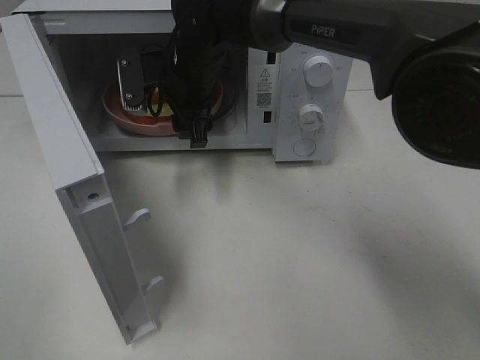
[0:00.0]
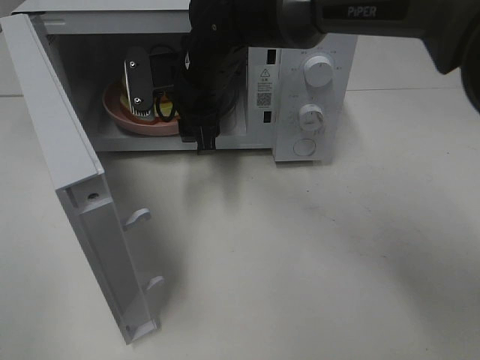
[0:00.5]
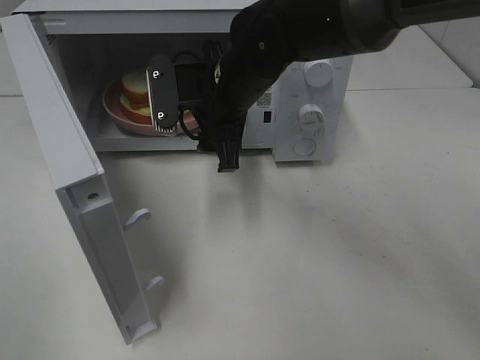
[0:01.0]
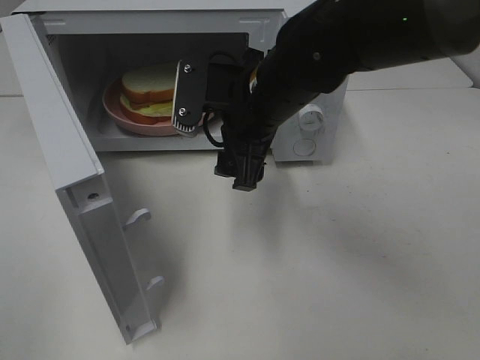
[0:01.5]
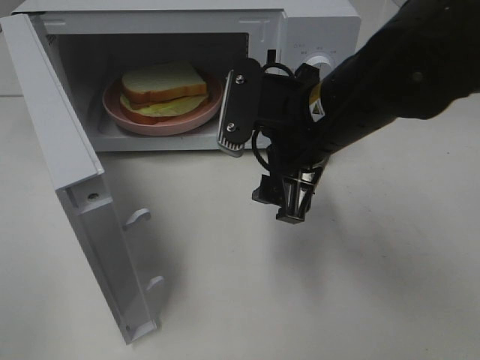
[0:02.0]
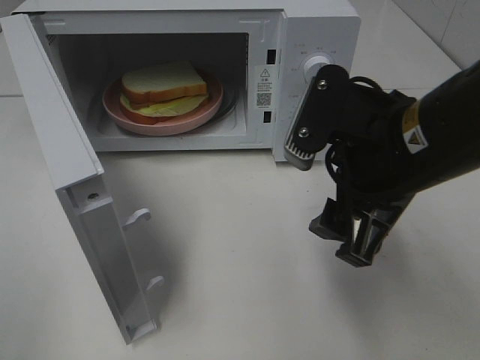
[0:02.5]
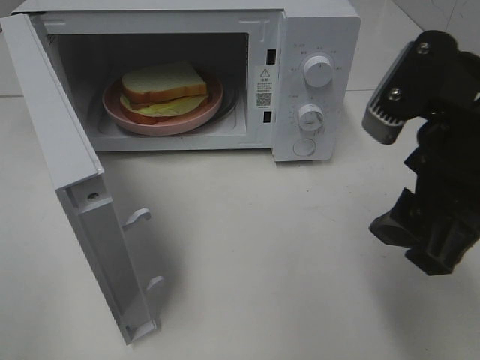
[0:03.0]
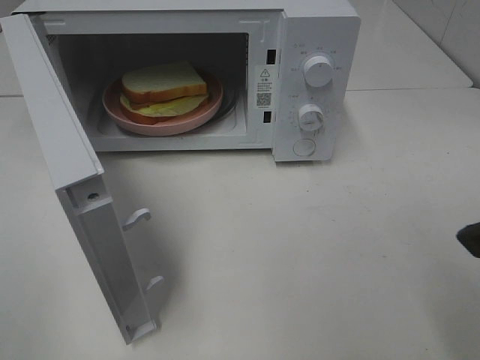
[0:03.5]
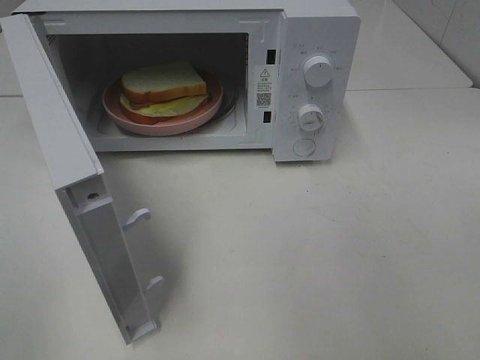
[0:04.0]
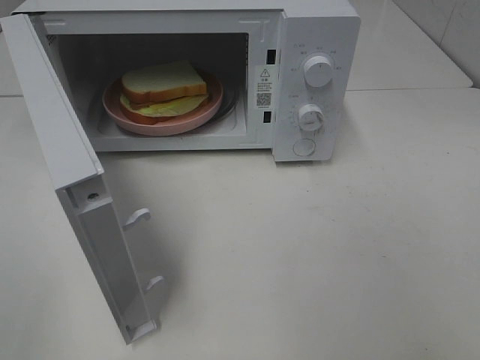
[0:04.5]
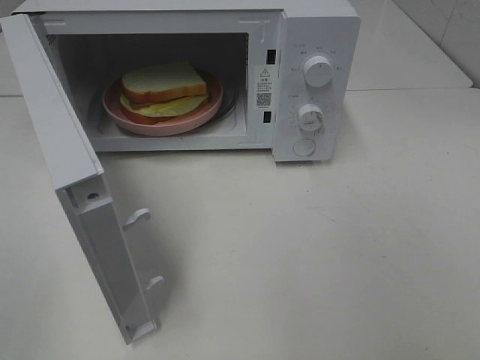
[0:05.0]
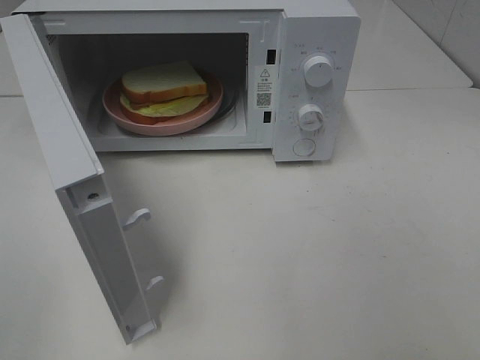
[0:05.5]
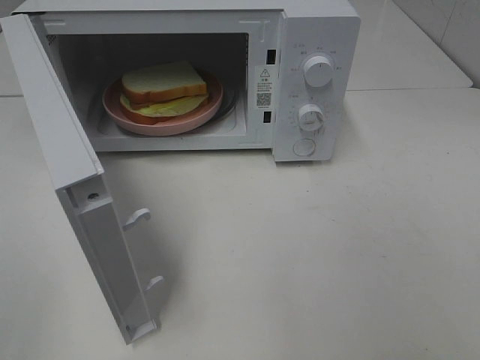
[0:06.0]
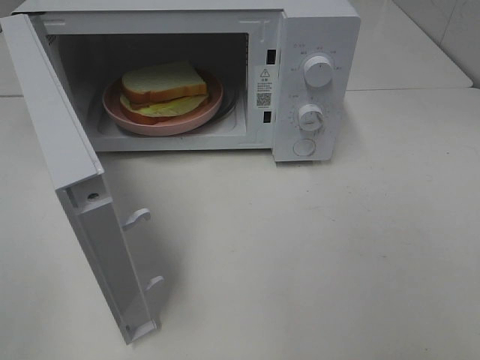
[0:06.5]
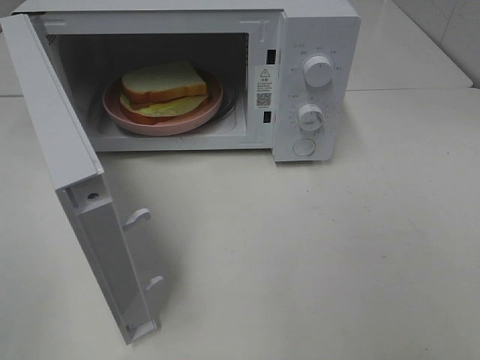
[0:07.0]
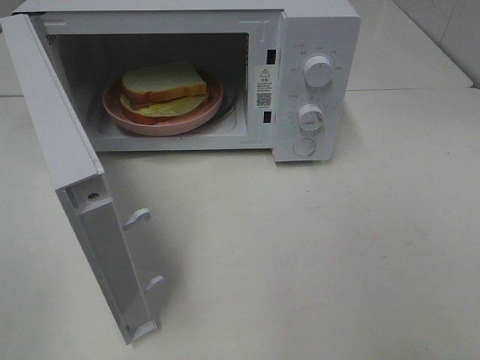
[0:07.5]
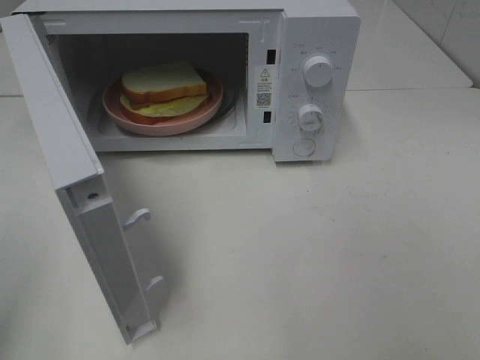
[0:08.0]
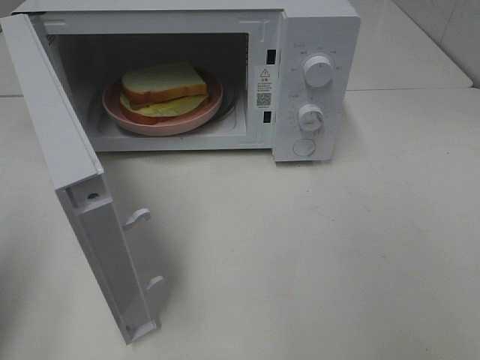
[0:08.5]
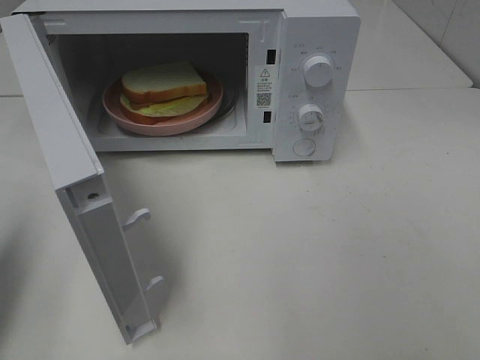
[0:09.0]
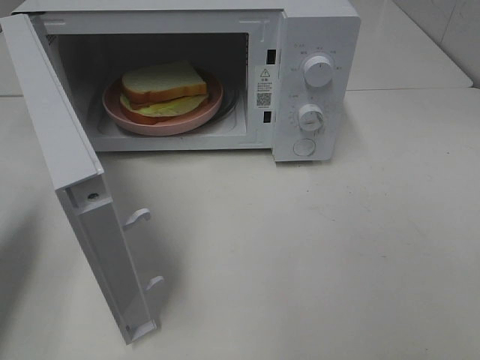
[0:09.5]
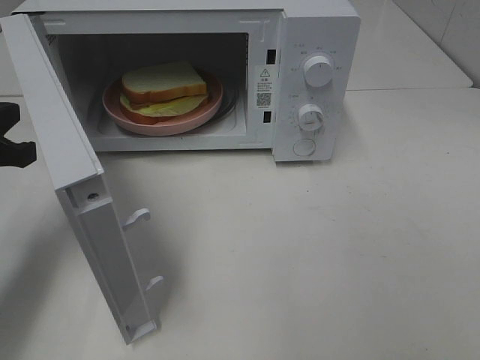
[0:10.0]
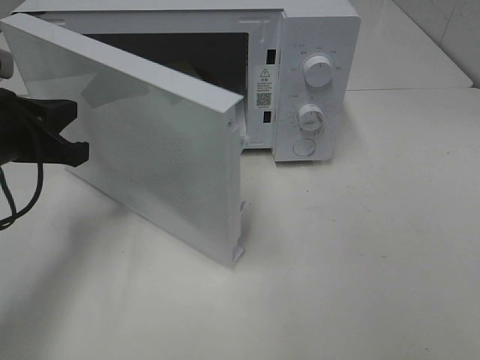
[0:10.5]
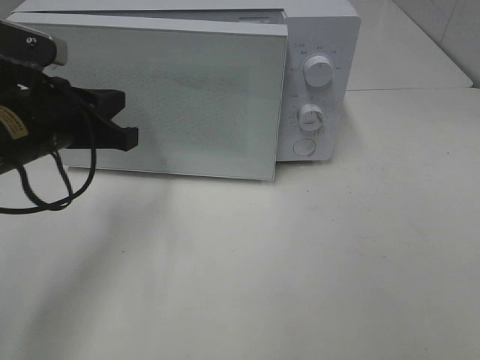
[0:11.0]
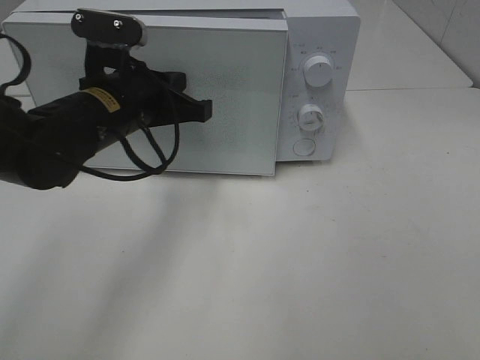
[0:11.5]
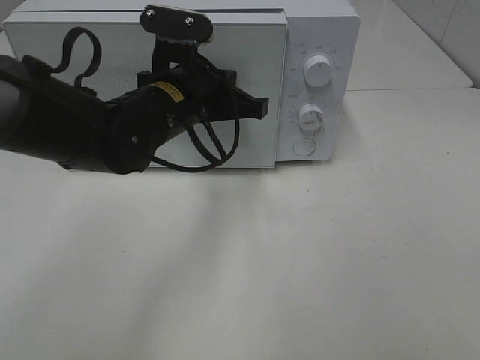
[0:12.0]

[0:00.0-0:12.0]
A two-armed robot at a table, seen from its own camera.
Task of the whole recording: Heat Sandwich.
0:00.0 to 0:02.0: The right gripper is displaced backward and to the right by about 20 cm.
0:02.0 to 0:04.0: The right gripper is displaced backward, to the right and upward by about 30 cm.
0:08.0 to 0:10.0: The left gripper moves forward and downward, approximately 20 cm.
0:10.0 to 0:12.0: The left gripper goes approximately 20 cm to the right.

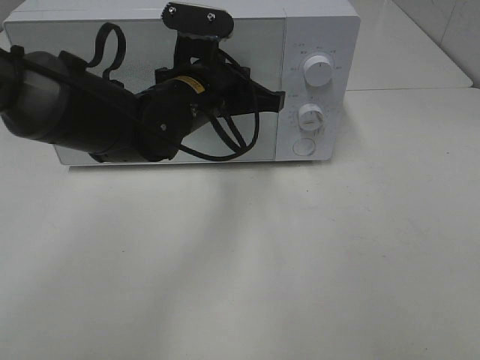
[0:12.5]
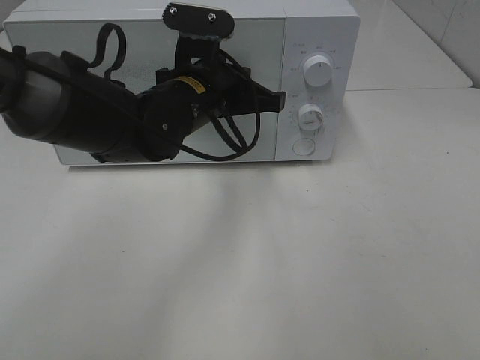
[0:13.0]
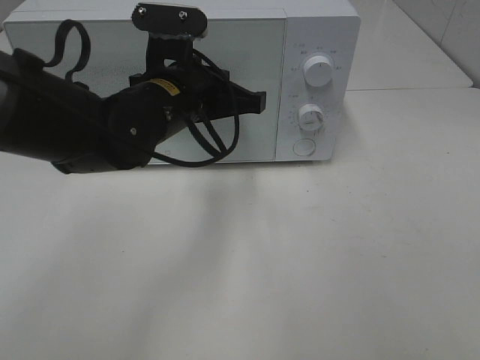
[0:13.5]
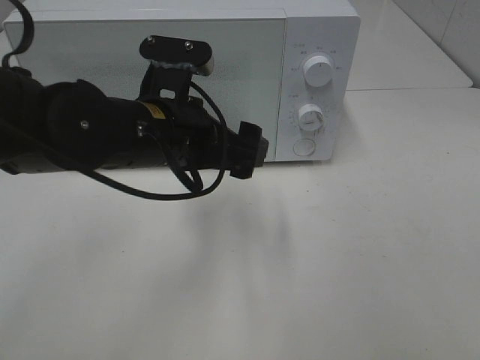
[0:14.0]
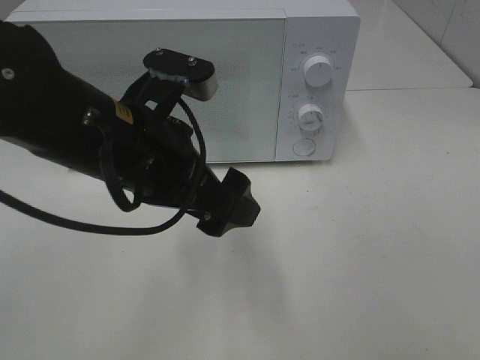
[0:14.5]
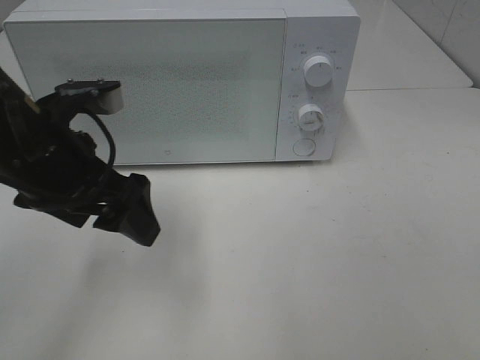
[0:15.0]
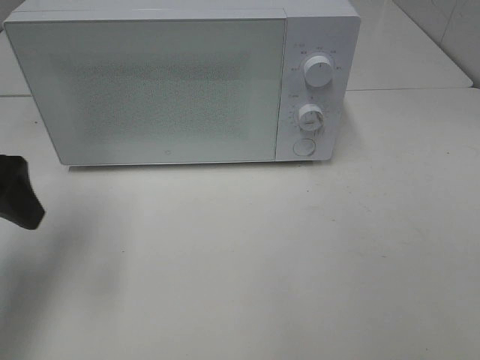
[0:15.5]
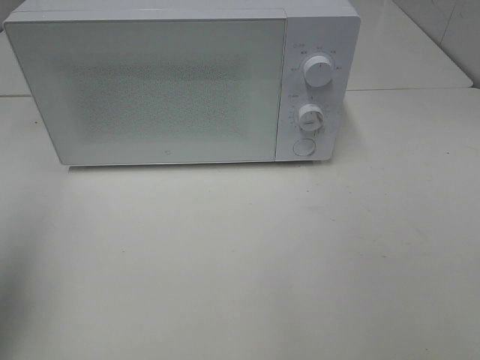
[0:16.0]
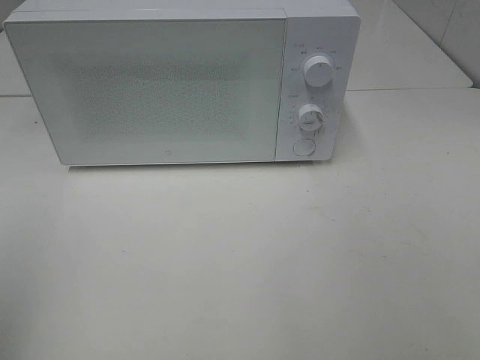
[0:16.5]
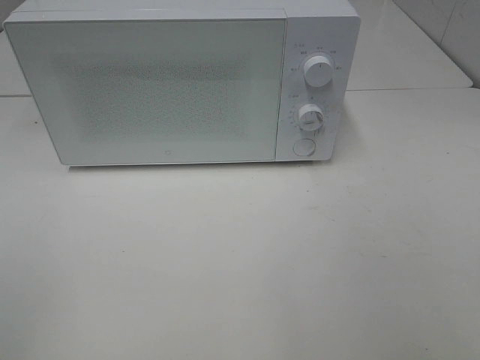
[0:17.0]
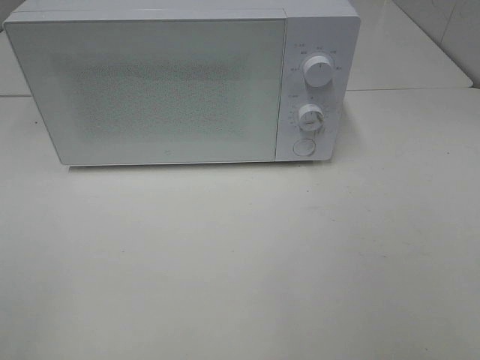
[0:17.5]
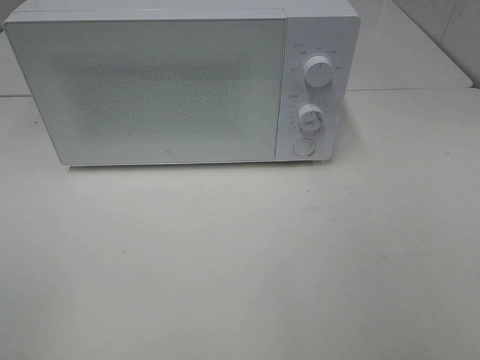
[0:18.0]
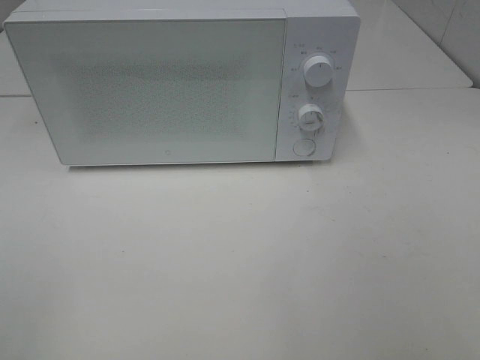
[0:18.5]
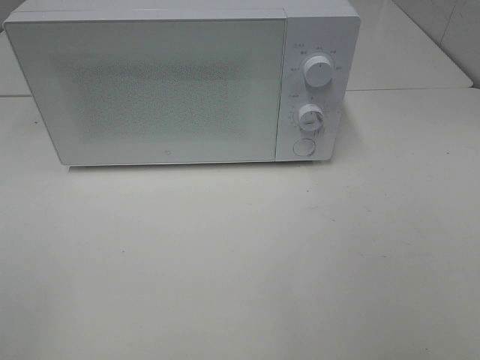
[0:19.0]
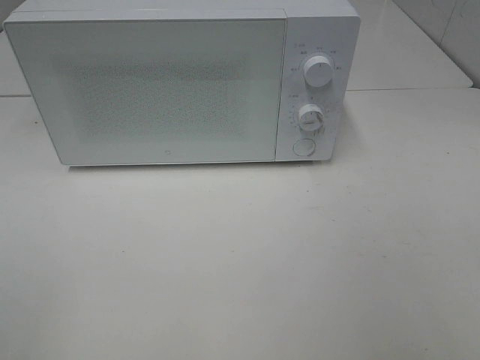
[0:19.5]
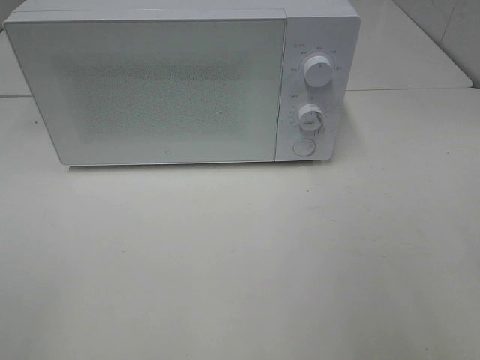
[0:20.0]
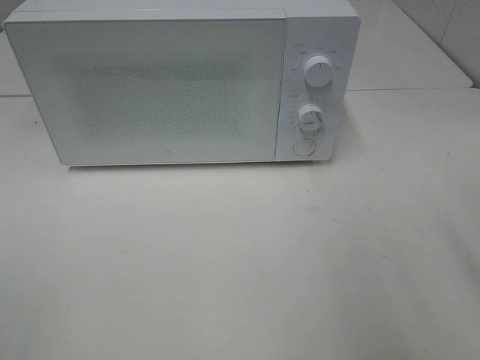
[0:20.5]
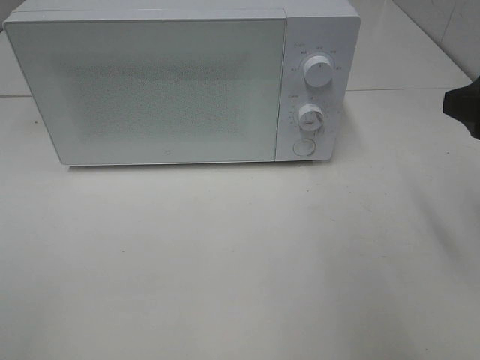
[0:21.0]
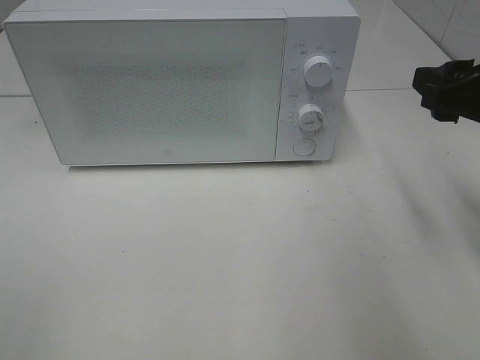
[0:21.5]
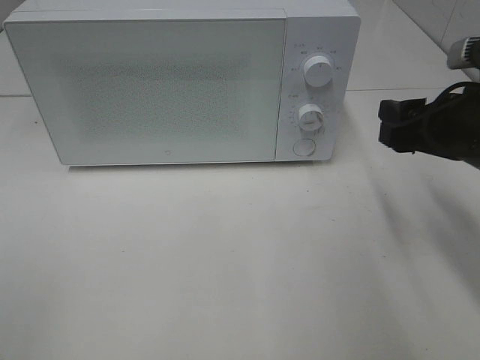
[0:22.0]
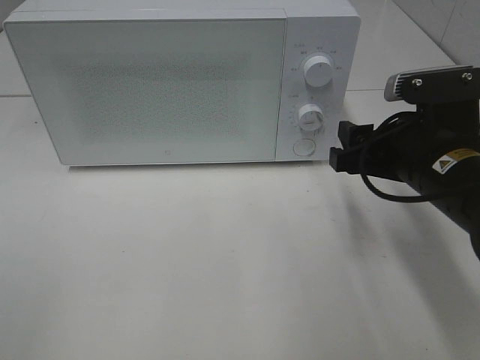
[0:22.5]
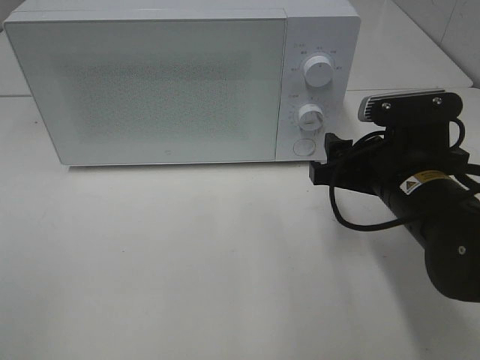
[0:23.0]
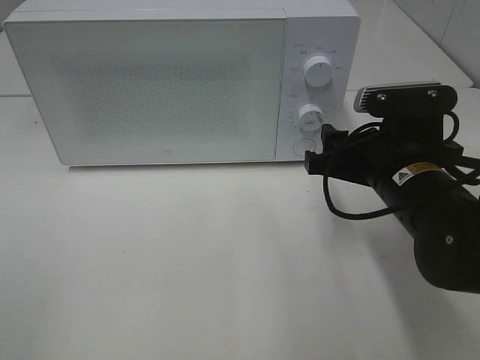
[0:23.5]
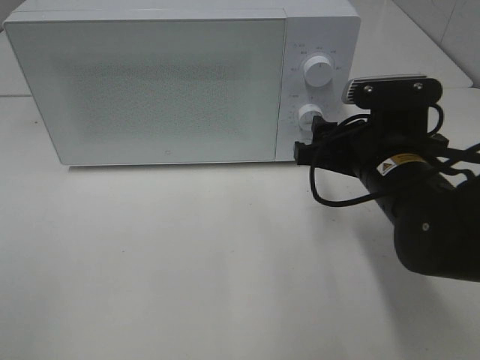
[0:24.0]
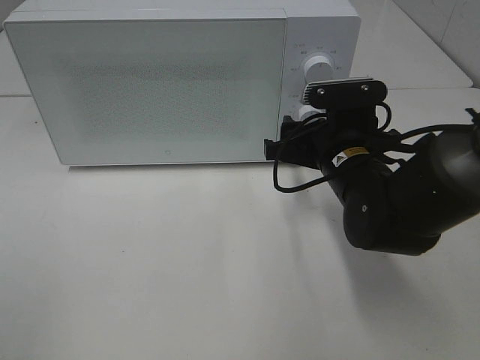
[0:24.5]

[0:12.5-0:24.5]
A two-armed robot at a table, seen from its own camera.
Task of the whole recording: Heat Sandwich.
0:12.5 to 0:14.5: The left gripper goes some 10 cm backward, and opens.
0:14.5 to 0:16.5: The left gripper shifts roughly 30 cm to the left and backward.
0:20.5 to 0:22.5: The right gripper moves downward, forward and to the left, about 15 cm.
0:22.5 to 0:24.5: The right gripper is displaced to the left and forward by about 10 cm.

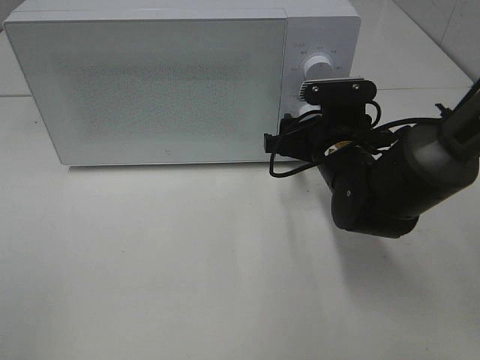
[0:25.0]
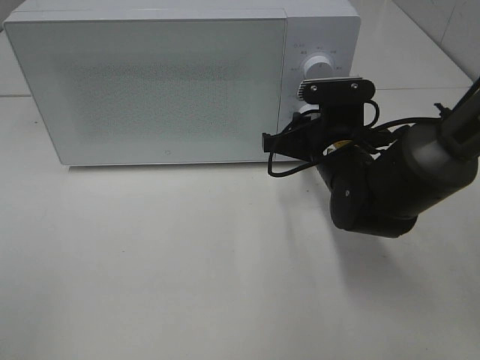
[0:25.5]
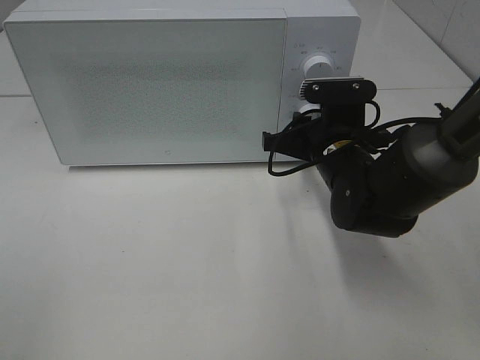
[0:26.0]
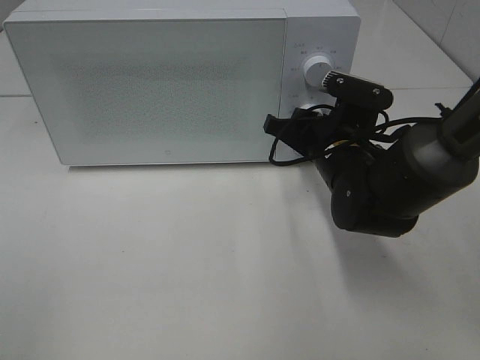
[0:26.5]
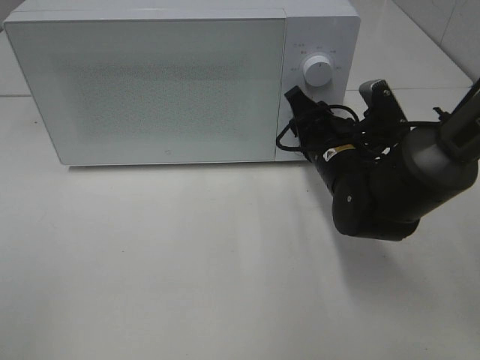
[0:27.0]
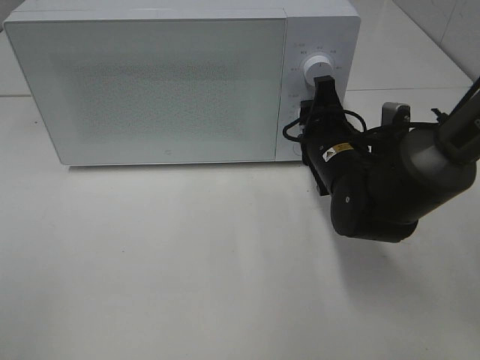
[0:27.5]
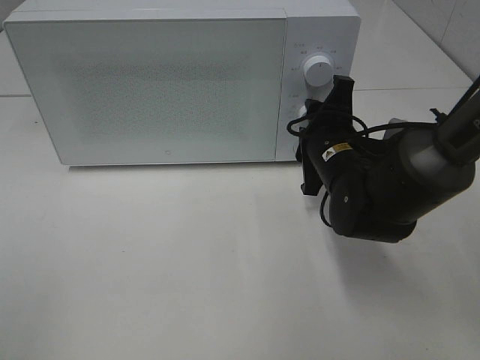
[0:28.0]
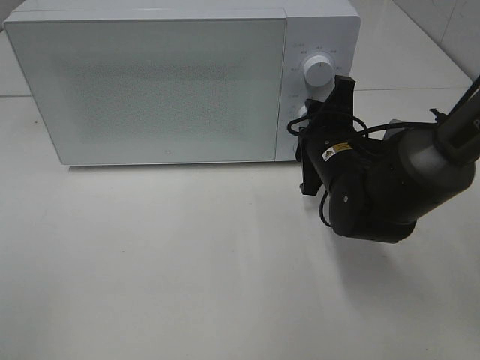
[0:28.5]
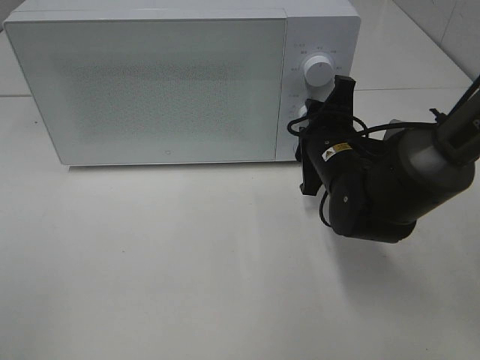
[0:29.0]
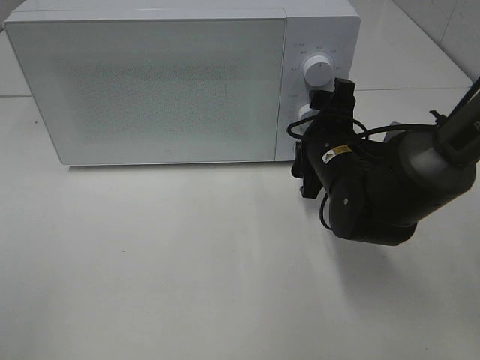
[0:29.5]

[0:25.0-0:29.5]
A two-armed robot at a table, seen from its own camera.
Task of the whole recording: Heat Sandwich.
0:27.0 to 0:29.5: The right gripper opens its fingers.
